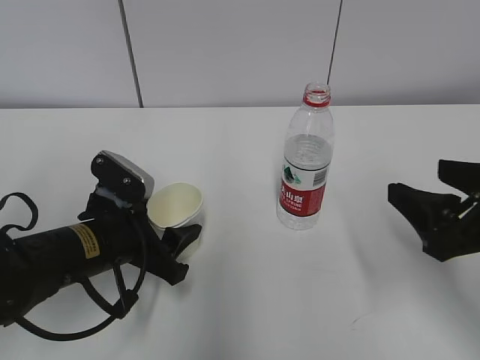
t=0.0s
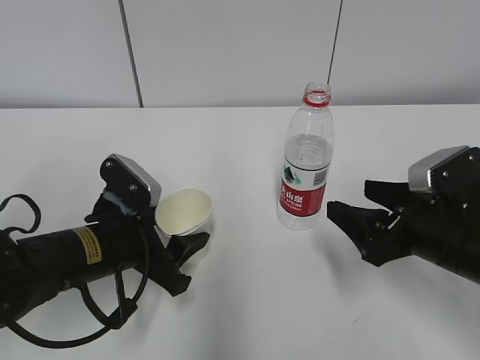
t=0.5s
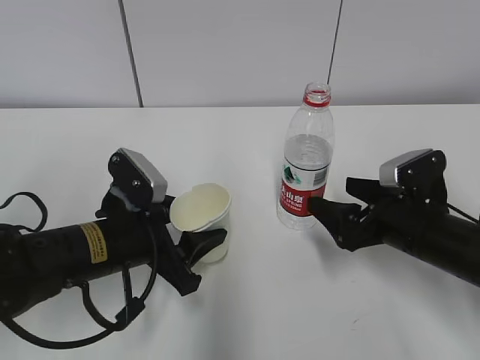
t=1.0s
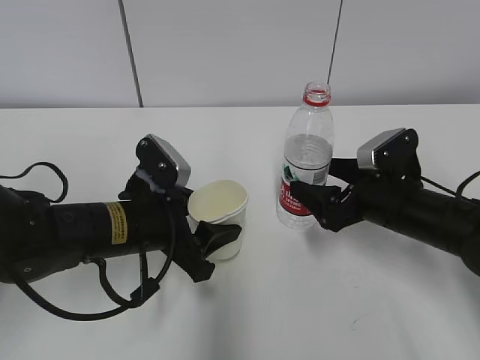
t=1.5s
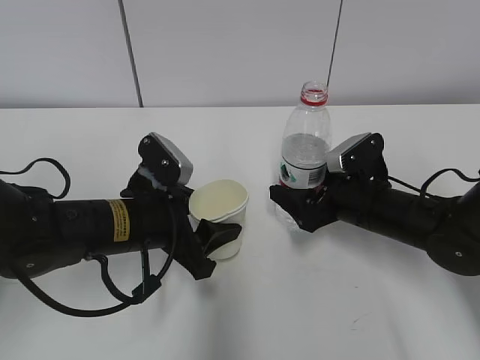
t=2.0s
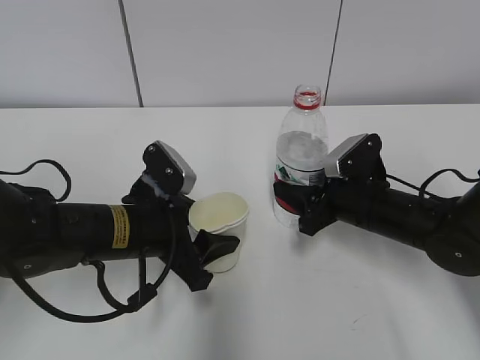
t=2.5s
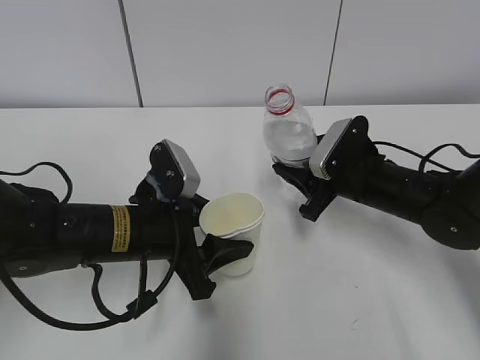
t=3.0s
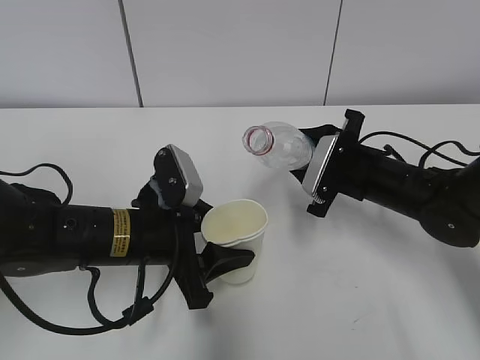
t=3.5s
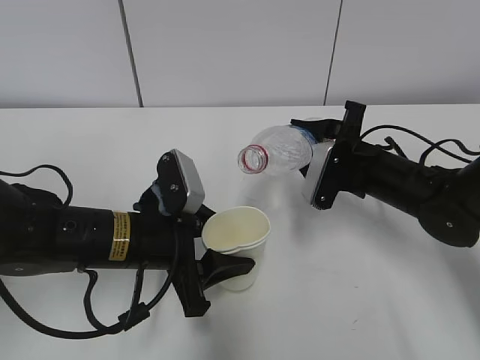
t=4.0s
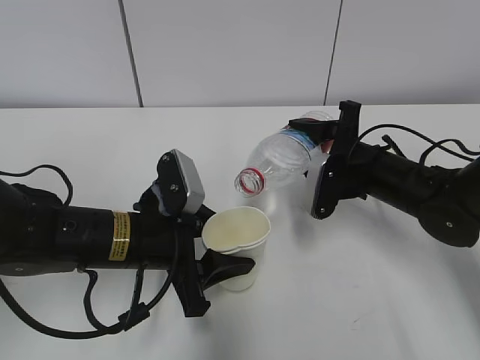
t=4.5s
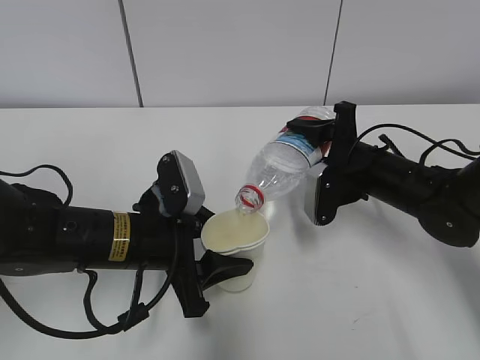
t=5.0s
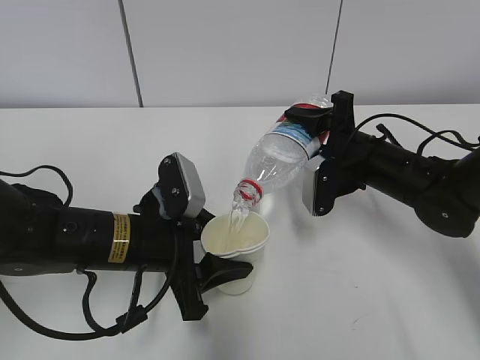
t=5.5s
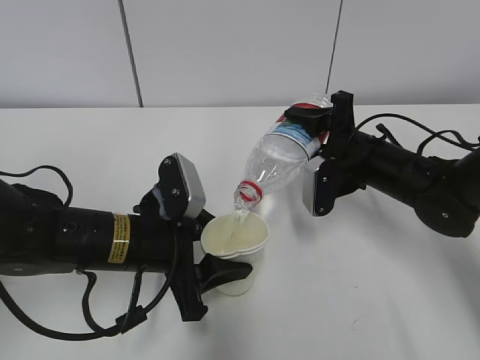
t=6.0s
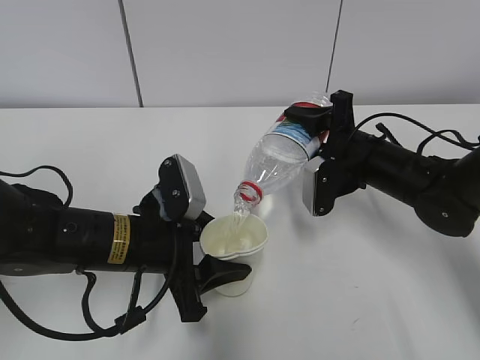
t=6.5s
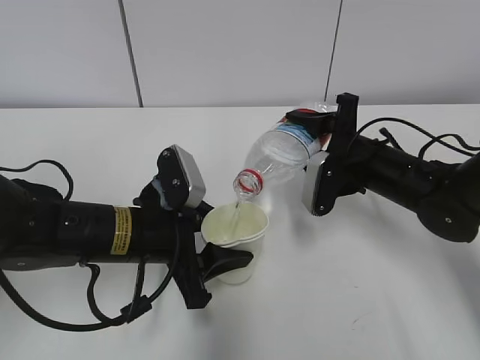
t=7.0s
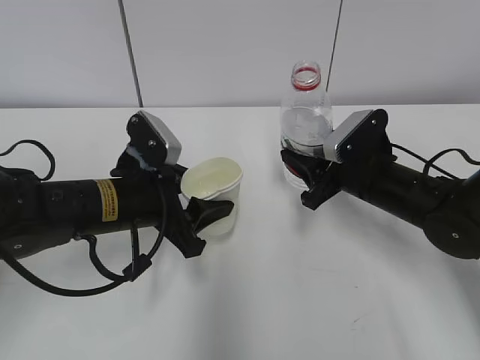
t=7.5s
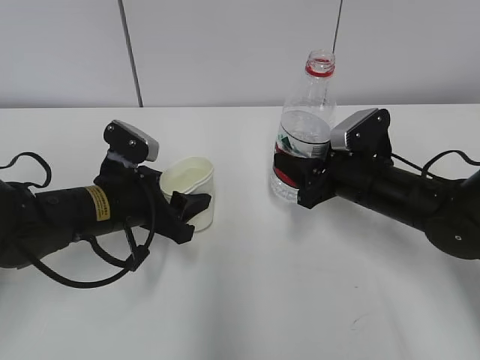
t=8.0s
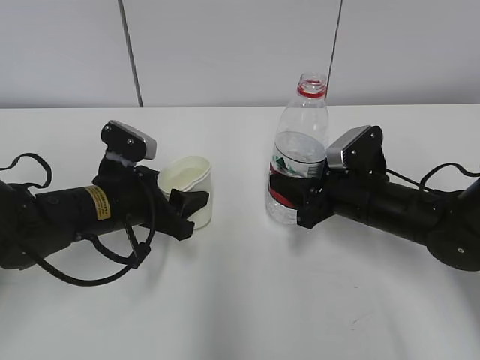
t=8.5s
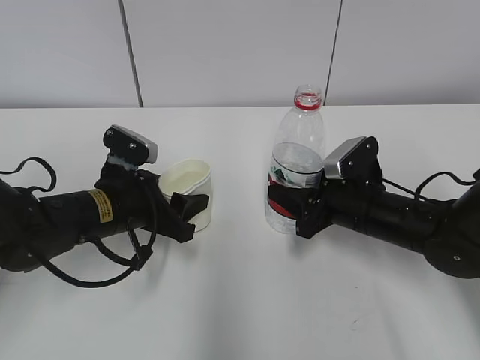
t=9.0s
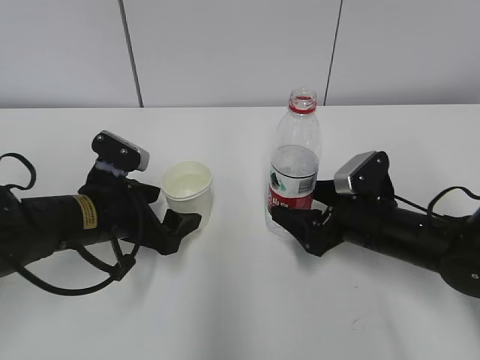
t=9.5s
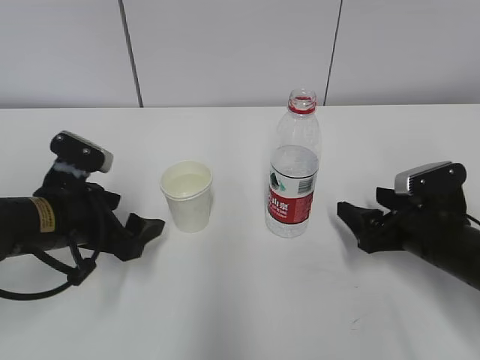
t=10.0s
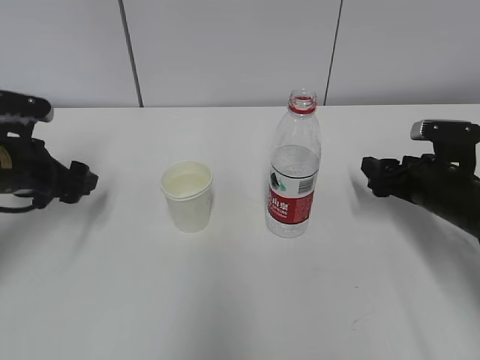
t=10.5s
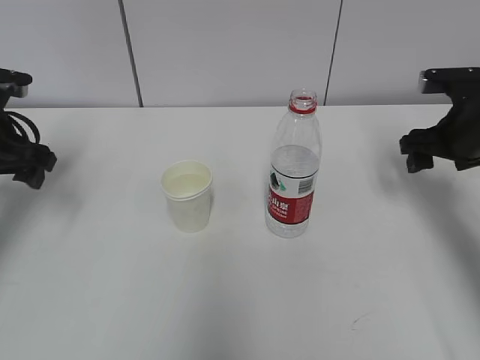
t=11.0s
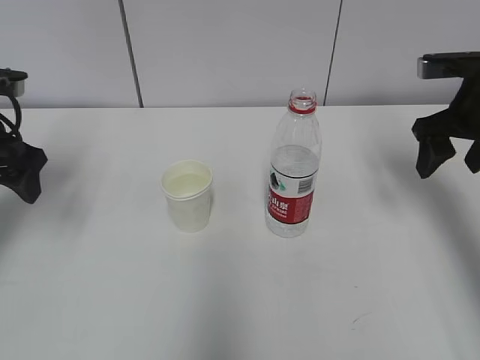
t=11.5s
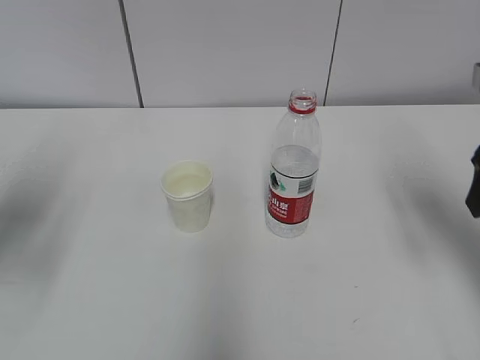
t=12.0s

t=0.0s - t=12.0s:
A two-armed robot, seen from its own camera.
Step, t=1.0s - t=2.5s: Lift the paper cup with the left hand.
Step, t=3.0s - t=4.5s: Fill water with the left hand.
Step, t=3.0s - t=4.5s: Pour water with the right hand.
t=0.0s - t=2.0s: The right gripper moves forward and downward, about 20 cm.
t=2.0s - t=4.0s: The right gripper closes its fingers.
t=6.0s - t=8.0s: The left gripper shifts some 5 cm forward.
t=8.0s - t=10.0s: The right gripper goes some 10 cm backward and to the right, and opens, while the left gripper is displaced to the left by some 5 cm, and opens its fingers.
t=10.0s - t=12.0s: The left gripper travels upward and to the left by some 15 cm. The right gripper moves upward, approximately 20 cm.

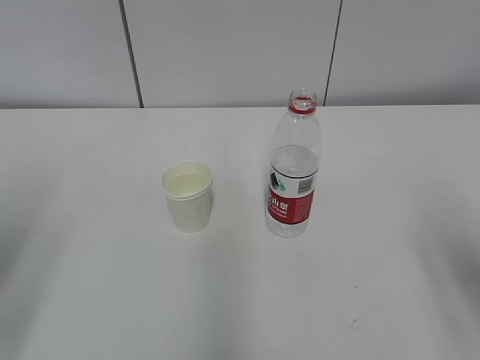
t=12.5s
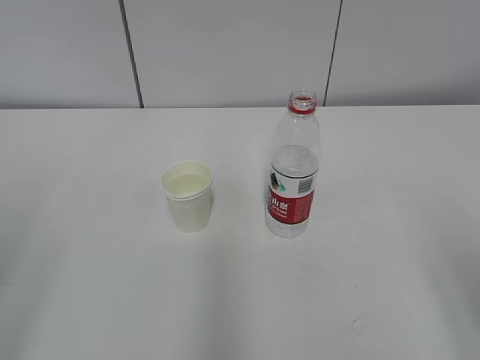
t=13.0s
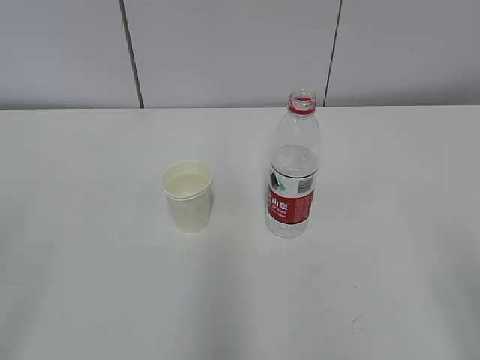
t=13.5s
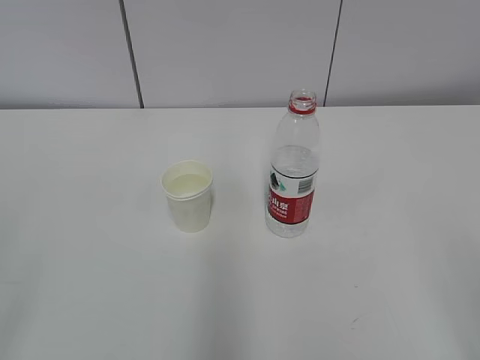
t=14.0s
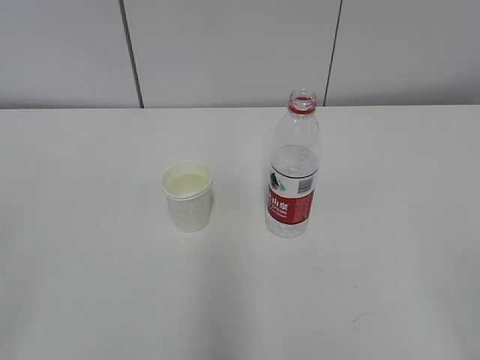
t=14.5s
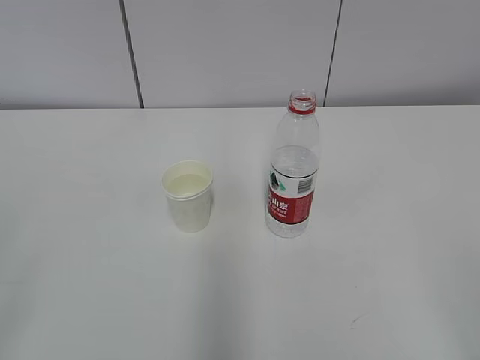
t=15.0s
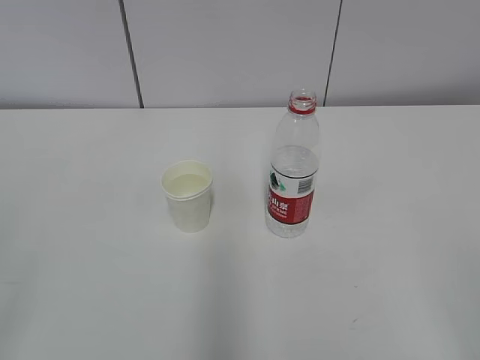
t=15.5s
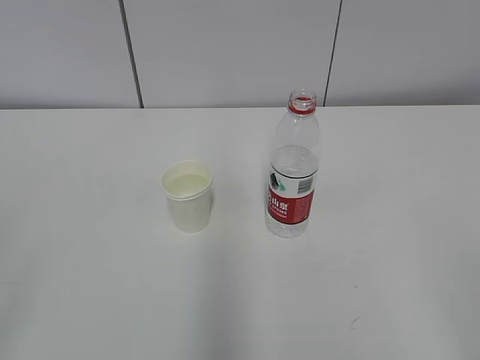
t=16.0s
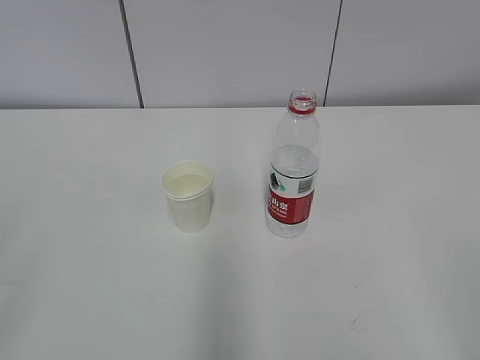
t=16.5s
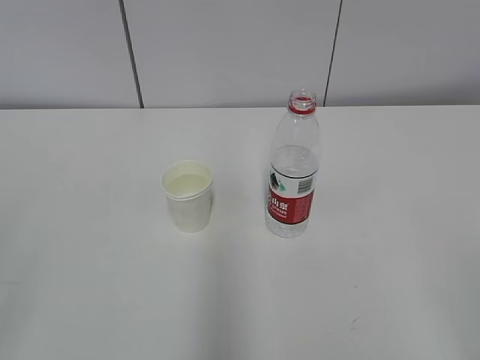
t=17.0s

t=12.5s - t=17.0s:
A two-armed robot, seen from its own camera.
t=12.5s - t=14.5s: The grippers both shift backward by some 15 cm.
t=14.5s - t=17.0s: Neither gripper changes place.

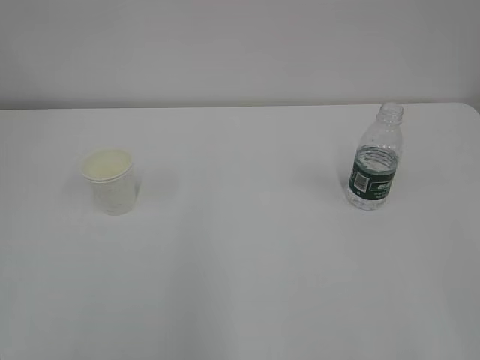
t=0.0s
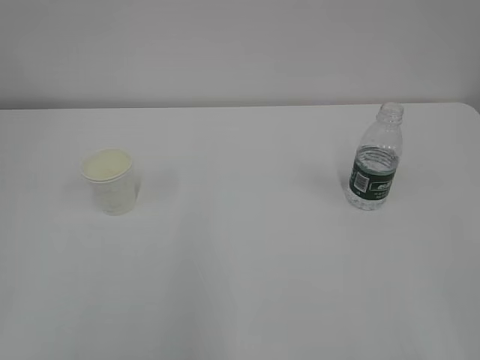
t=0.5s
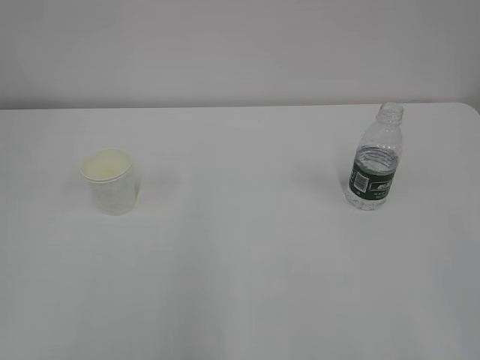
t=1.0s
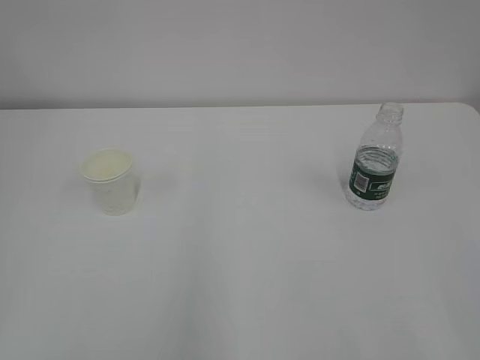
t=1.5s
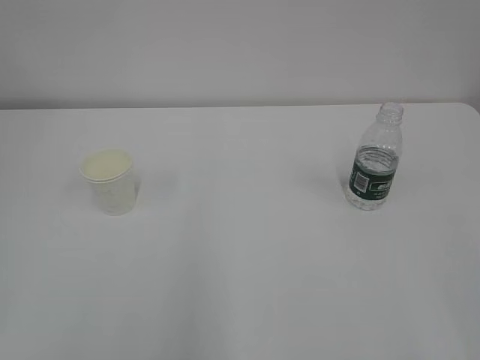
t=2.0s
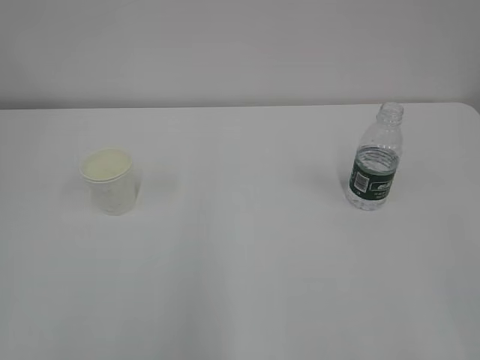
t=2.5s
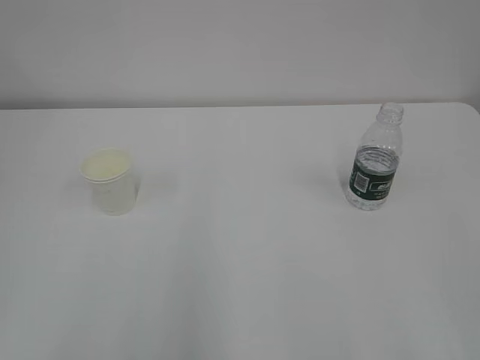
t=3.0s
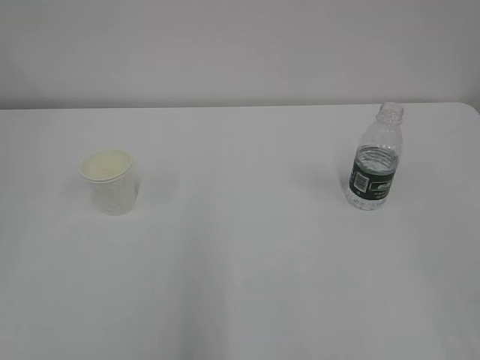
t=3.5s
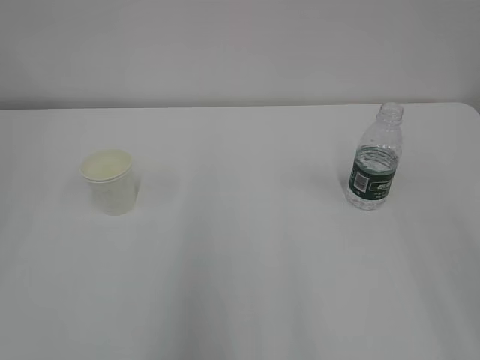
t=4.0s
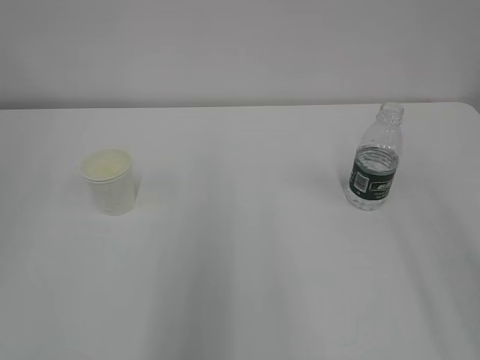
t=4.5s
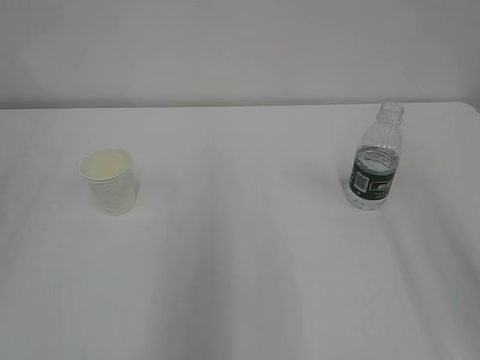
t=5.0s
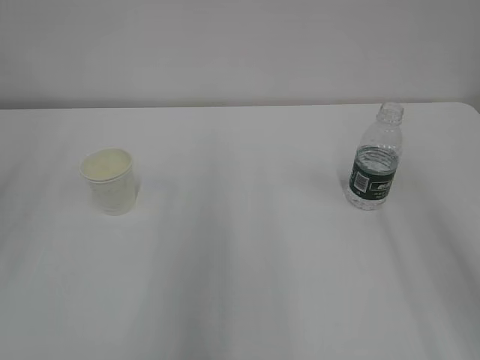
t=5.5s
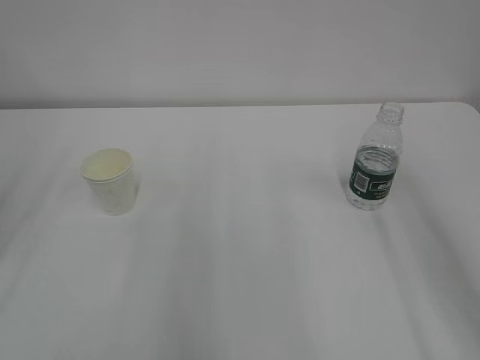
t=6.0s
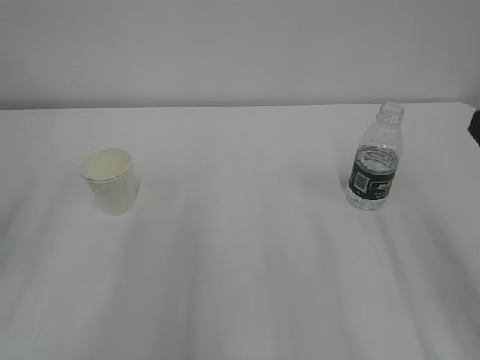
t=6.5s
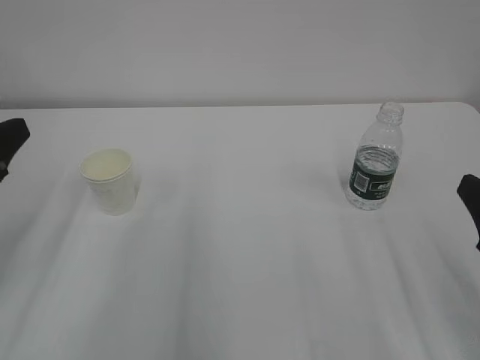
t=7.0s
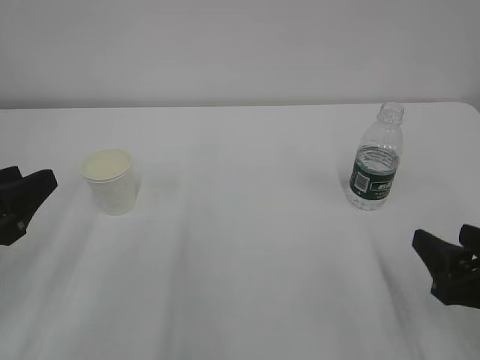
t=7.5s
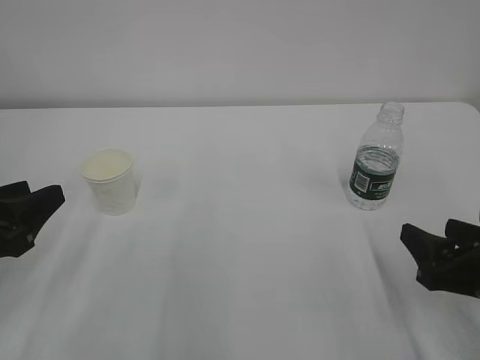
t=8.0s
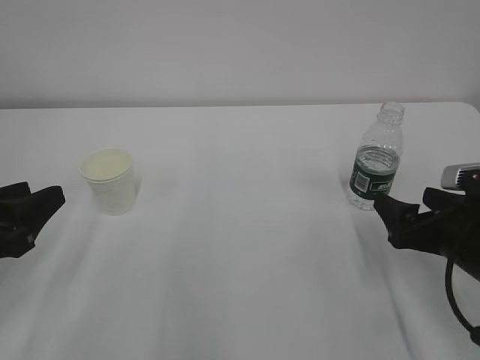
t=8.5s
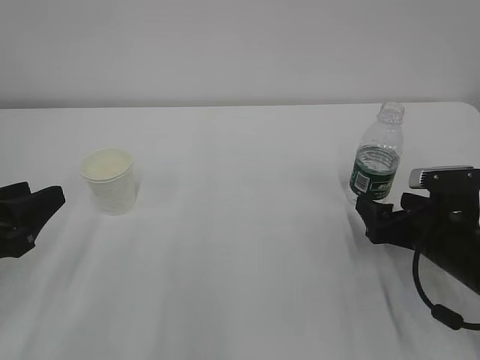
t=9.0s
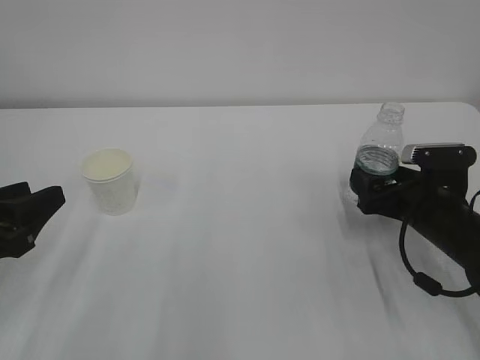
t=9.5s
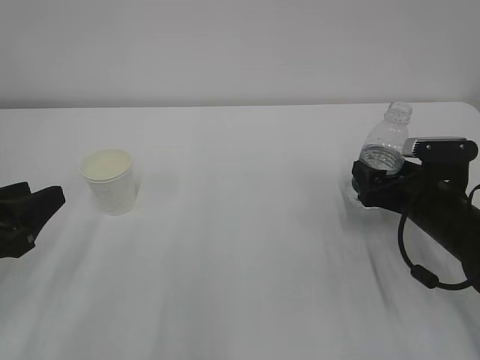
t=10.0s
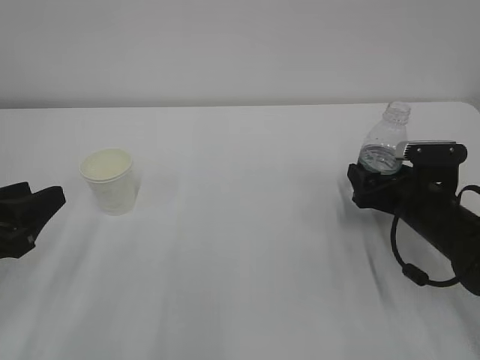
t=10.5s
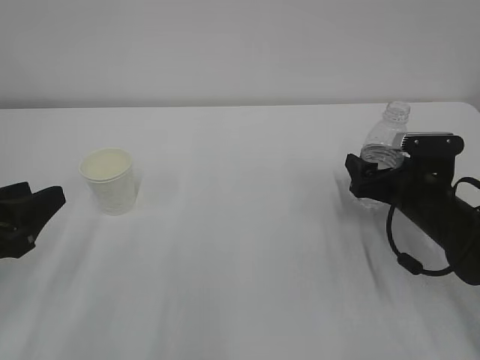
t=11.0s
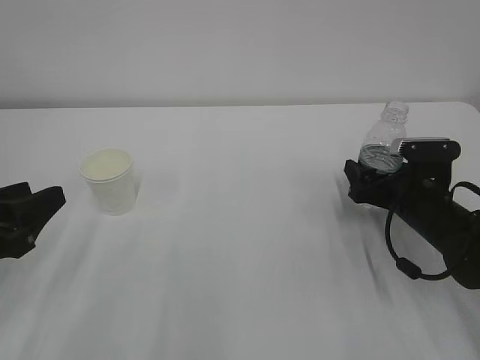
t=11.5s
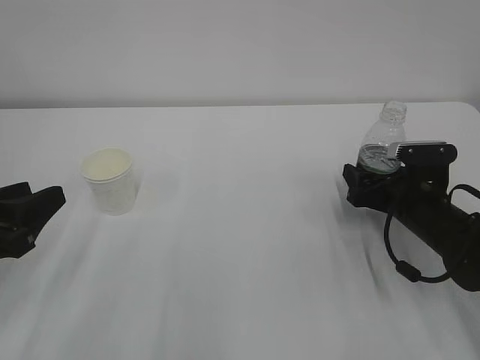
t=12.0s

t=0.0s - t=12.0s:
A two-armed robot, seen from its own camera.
t=6.0s - t=8.0s: The right gripper moves downward, approximately 20 cm, while the left gripper goes some 10 cm downward.
t=8.0s - t=10.0s: The right gripper travels forward by about 15 cm, and opens up.
t=10.0s - t=12.0s: The grippers move only a little.
